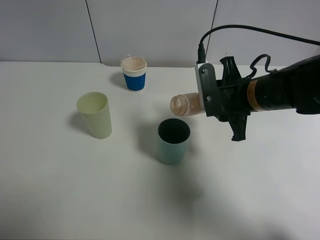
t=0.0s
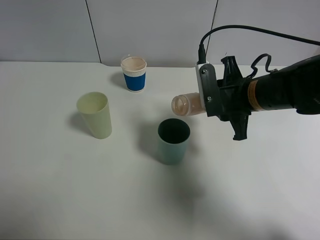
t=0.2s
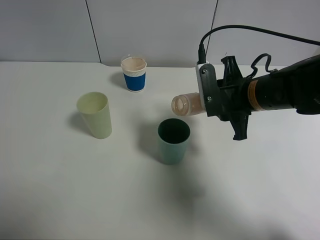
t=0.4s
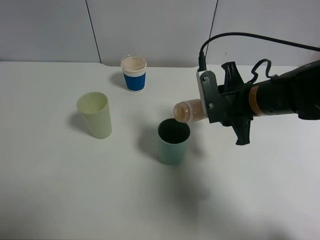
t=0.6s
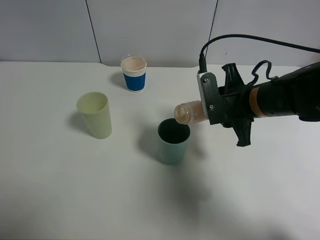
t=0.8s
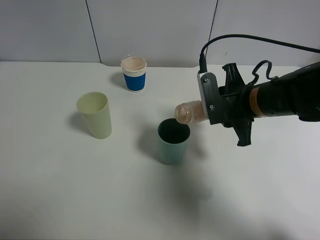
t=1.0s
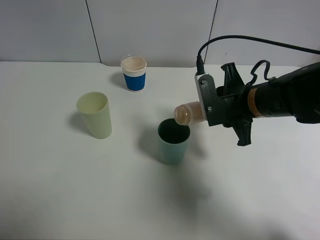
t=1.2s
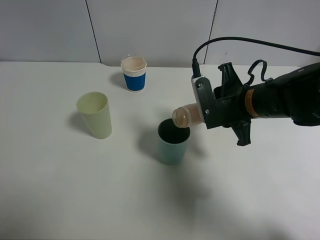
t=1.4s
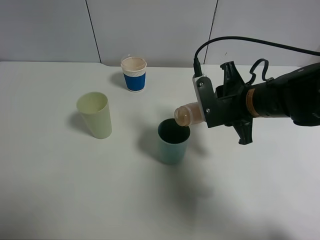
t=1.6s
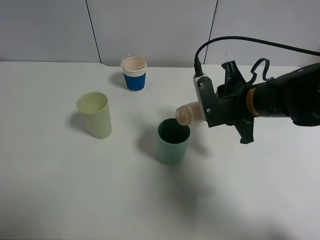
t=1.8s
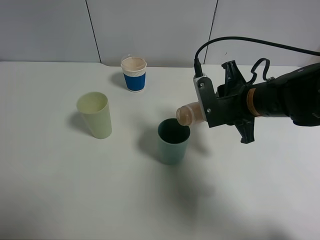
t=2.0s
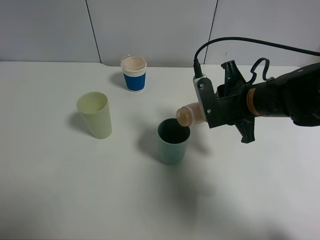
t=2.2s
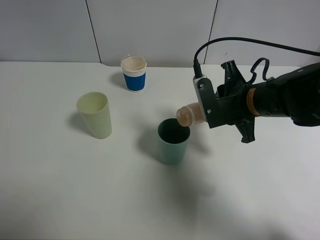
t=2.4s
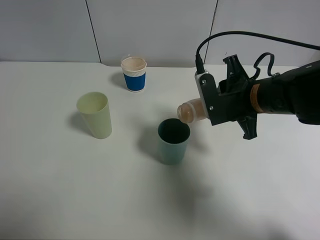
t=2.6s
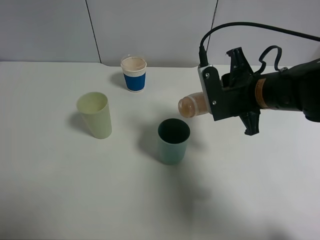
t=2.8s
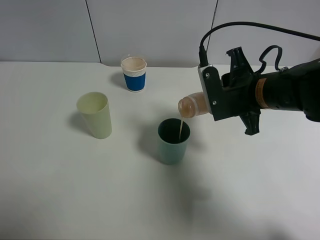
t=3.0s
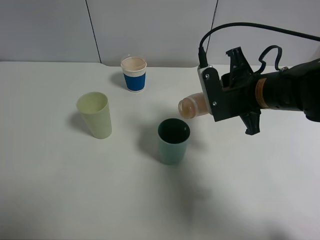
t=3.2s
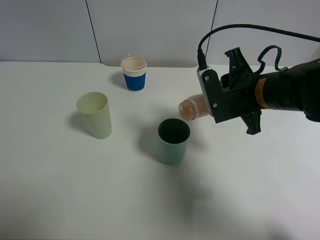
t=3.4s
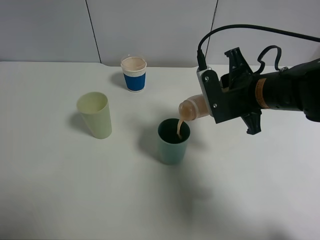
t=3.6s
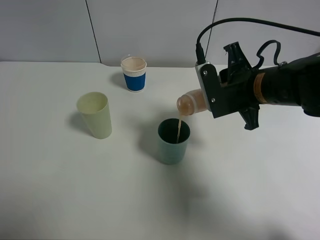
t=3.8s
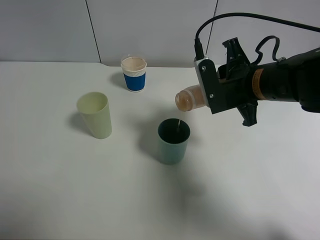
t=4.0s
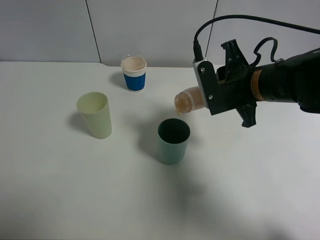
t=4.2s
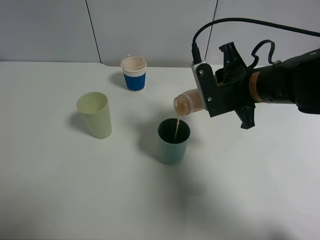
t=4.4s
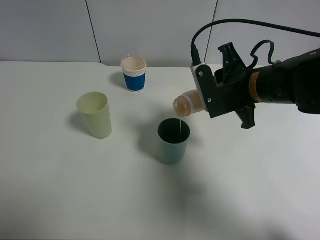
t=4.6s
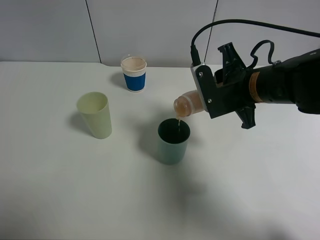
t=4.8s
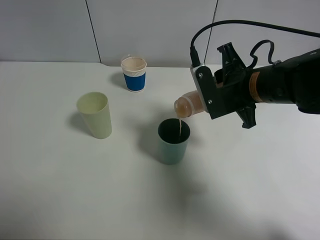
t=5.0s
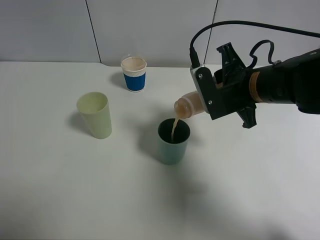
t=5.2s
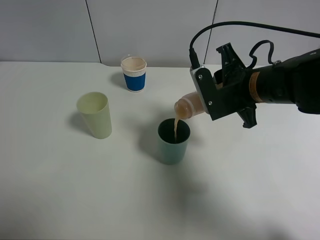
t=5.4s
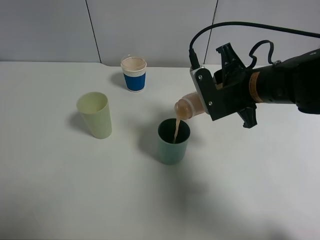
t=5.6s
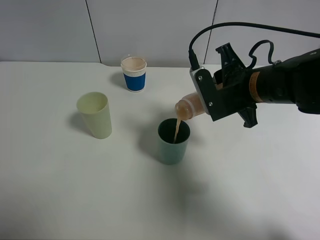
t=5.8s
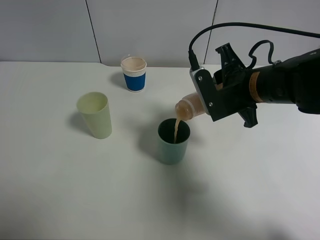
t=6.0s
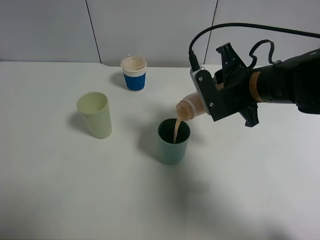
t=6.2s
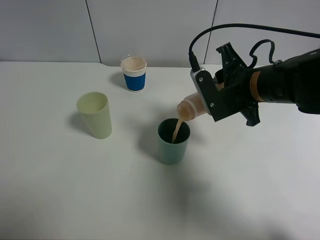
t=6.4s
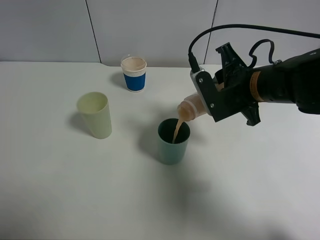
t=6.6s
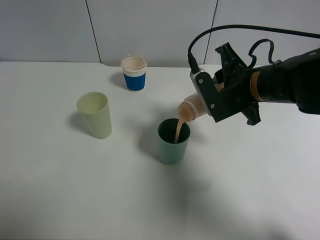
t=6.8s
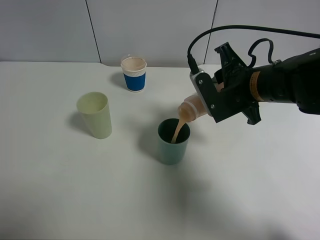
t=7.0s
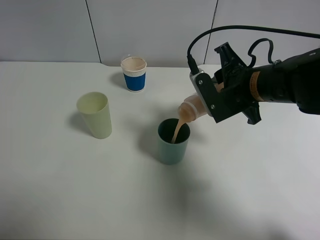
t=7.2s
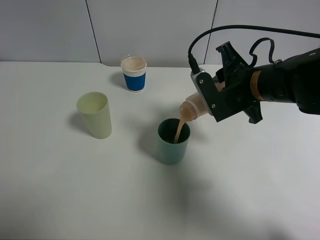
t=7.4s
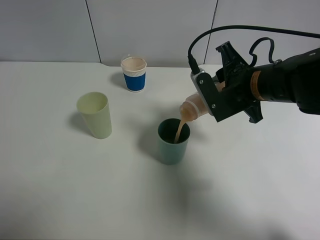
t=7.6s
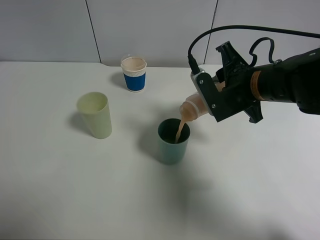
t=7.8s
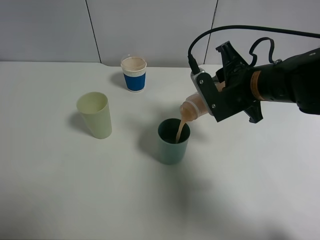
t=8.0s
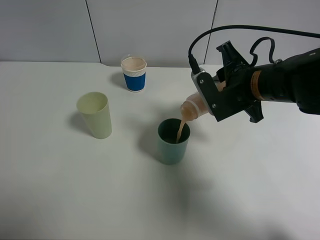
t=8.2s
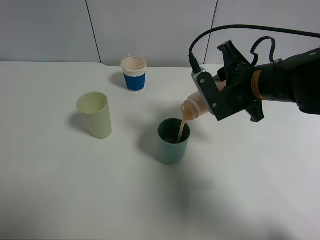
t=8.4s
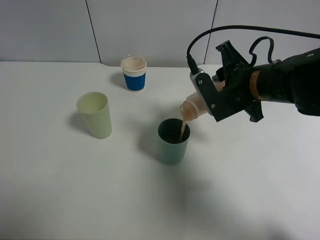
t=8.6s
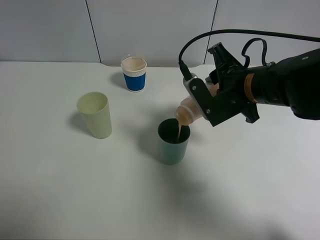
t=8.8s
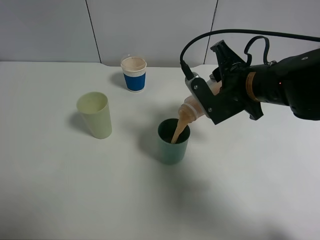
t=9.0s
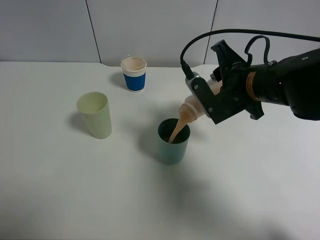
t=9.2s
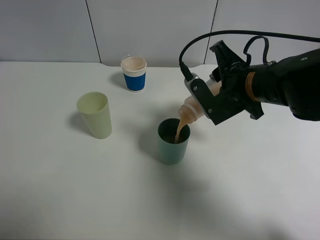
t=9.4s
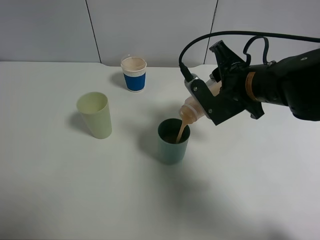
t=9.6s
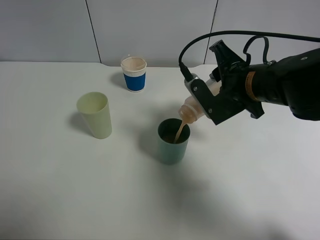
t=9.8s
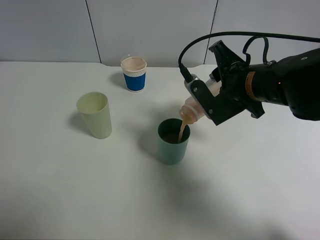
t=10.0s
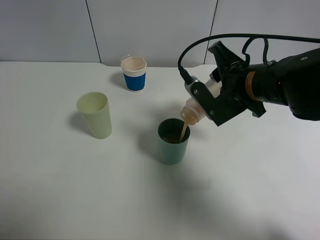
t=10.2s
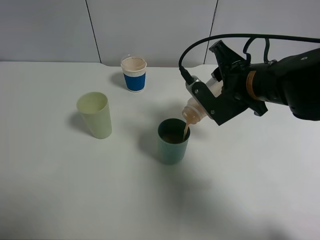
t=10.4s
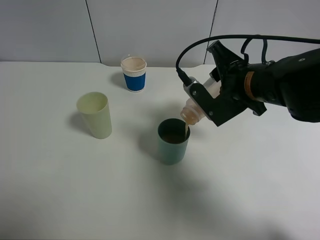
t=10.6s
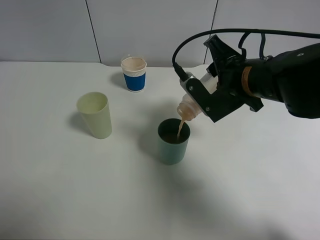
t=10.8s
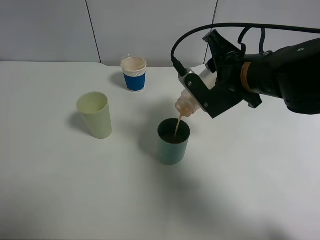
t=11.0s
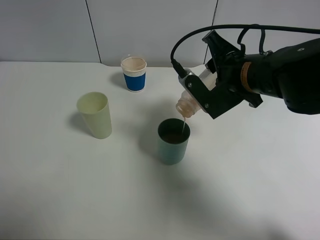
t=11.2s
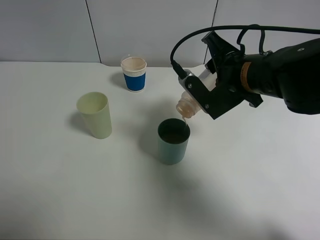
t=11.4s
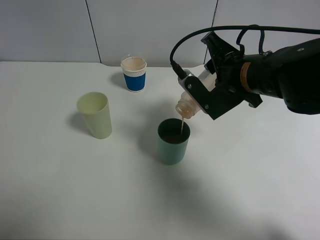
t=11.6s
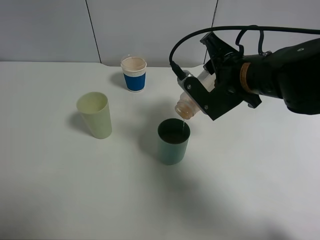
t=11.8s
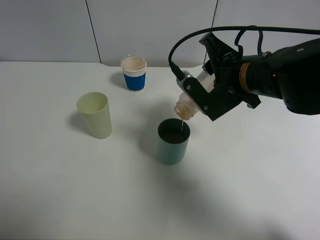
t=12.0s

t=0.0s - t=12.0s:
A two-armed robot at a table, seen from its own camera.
Task of the whole recording: use a clamp to hold the bottle of the drink, pour the beverage into a random cup, then clamp the cup containing the drink and pour the drink into another random cup.
t=0.0s - t=3.0s: The grippers move only a little.
t=3.0s - t=4.4s: Both grippers stay about where they are.
t=4.4s - t=9.0s: There are only small adjustments of the grippers.
t=9.0s - t=12.0s: The grippers move only a little.

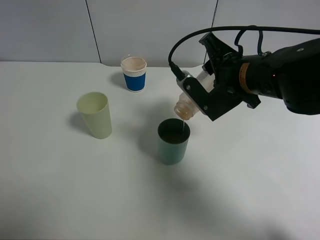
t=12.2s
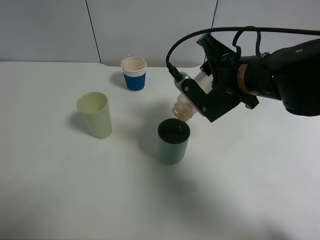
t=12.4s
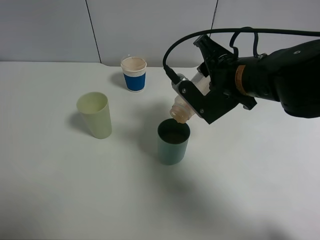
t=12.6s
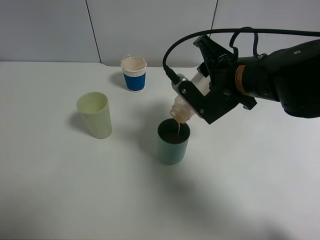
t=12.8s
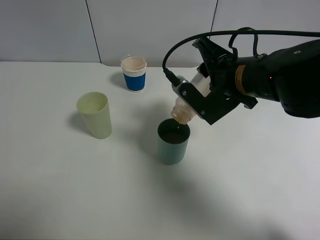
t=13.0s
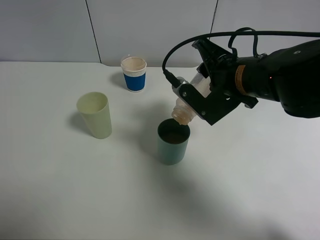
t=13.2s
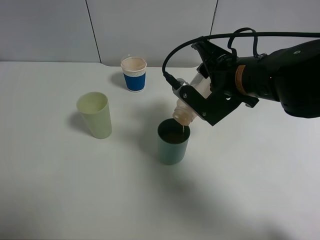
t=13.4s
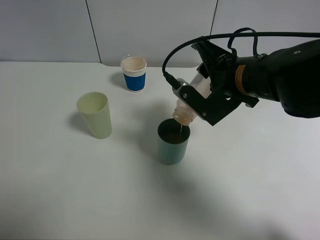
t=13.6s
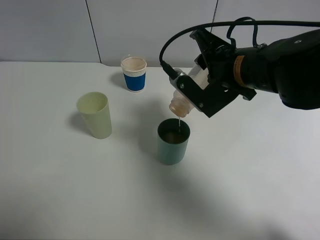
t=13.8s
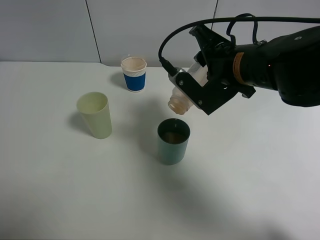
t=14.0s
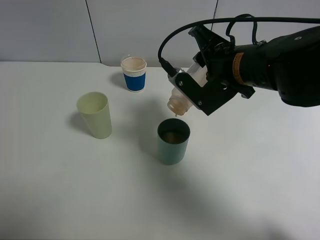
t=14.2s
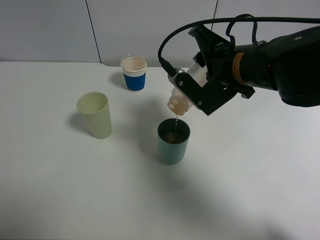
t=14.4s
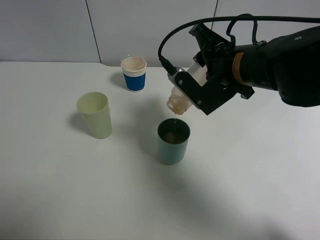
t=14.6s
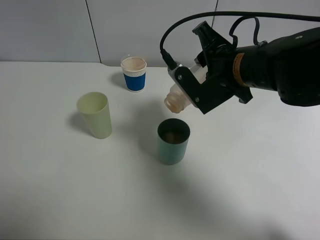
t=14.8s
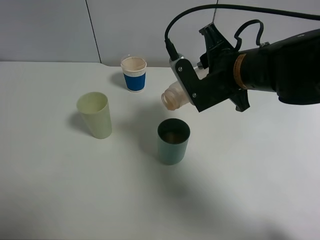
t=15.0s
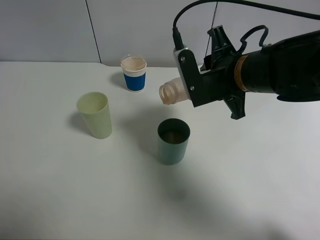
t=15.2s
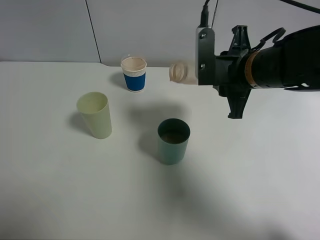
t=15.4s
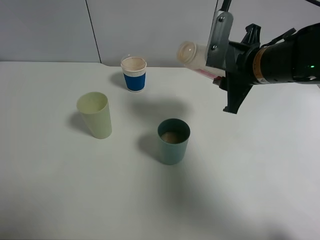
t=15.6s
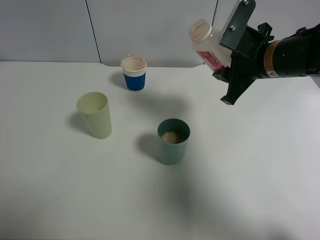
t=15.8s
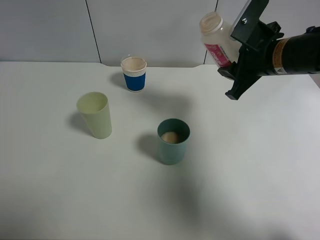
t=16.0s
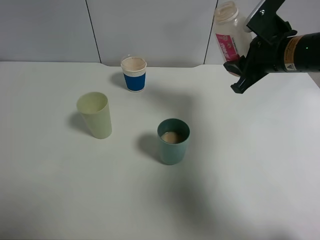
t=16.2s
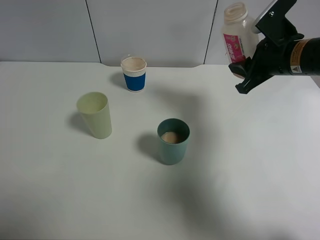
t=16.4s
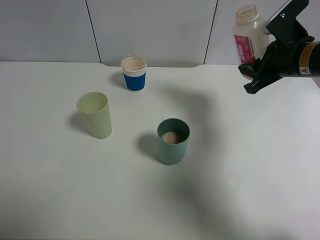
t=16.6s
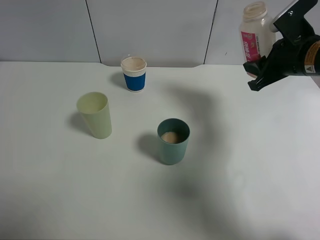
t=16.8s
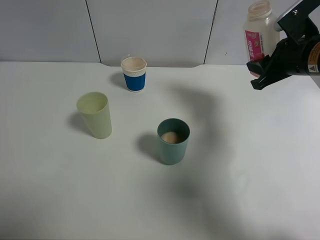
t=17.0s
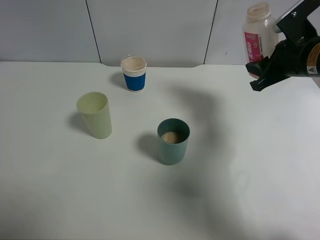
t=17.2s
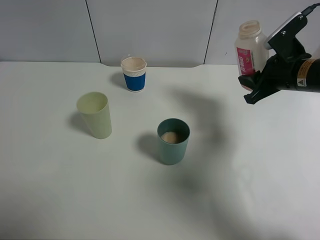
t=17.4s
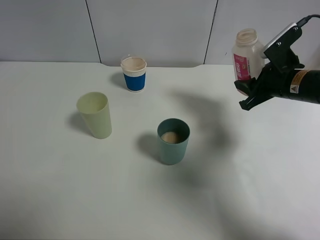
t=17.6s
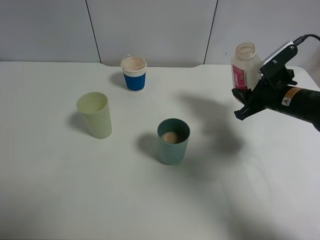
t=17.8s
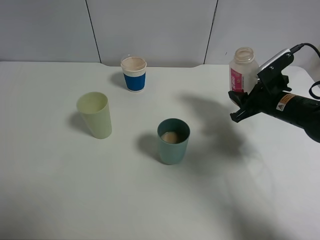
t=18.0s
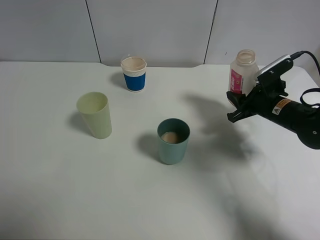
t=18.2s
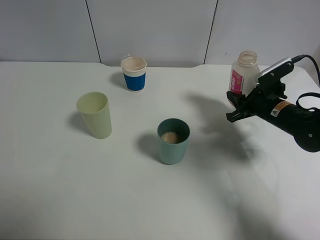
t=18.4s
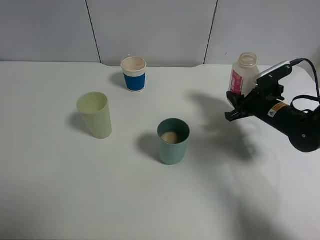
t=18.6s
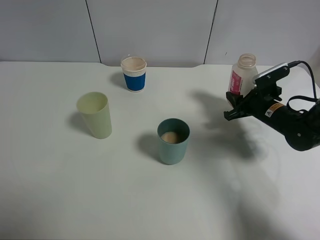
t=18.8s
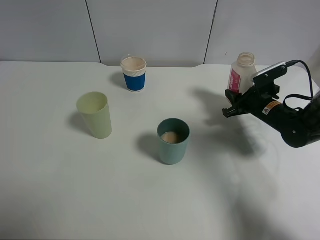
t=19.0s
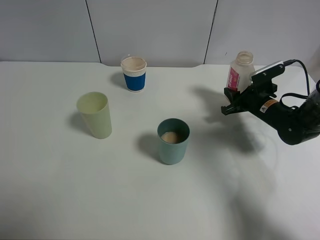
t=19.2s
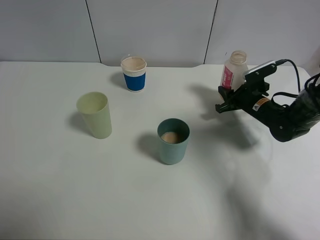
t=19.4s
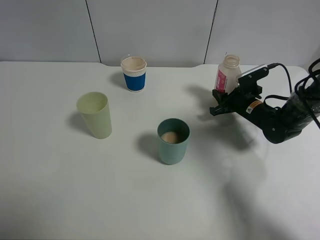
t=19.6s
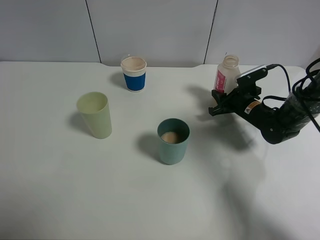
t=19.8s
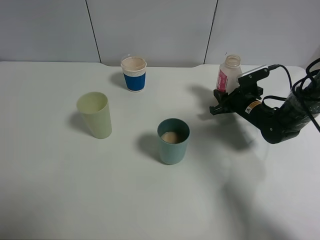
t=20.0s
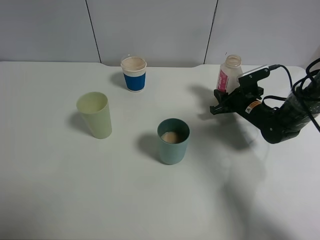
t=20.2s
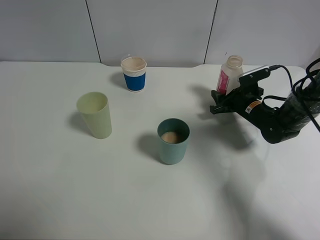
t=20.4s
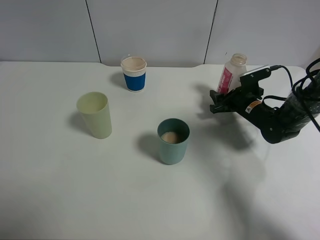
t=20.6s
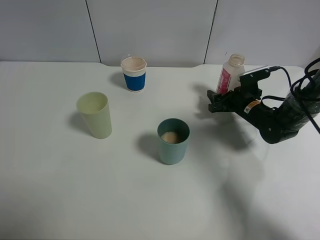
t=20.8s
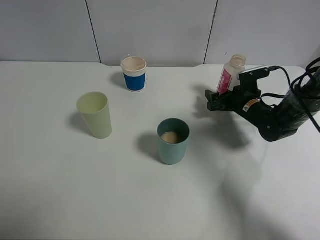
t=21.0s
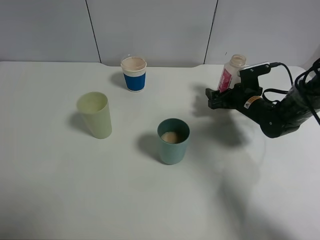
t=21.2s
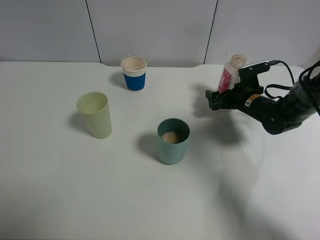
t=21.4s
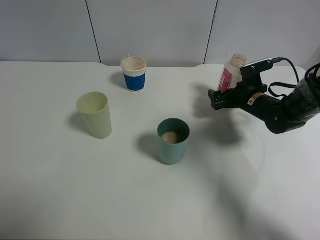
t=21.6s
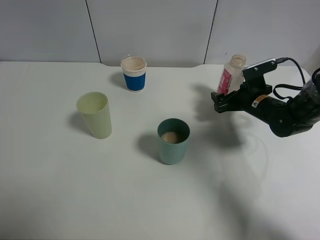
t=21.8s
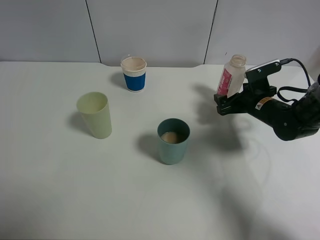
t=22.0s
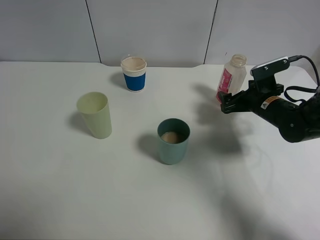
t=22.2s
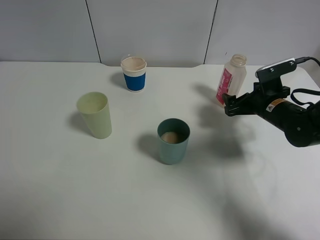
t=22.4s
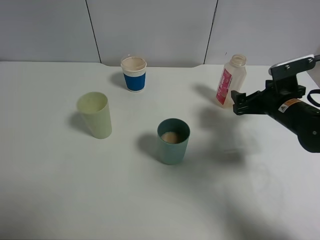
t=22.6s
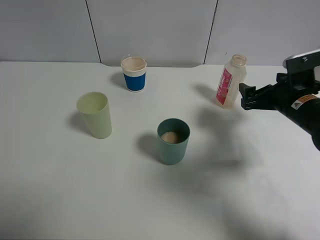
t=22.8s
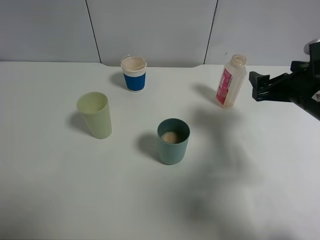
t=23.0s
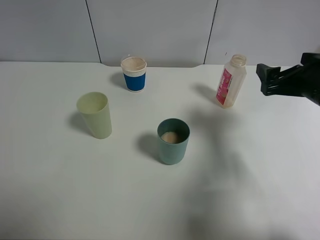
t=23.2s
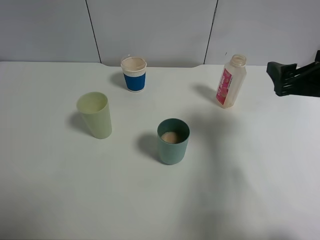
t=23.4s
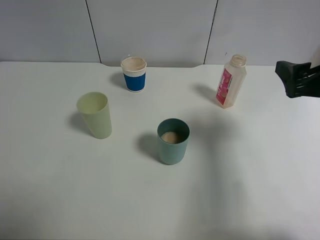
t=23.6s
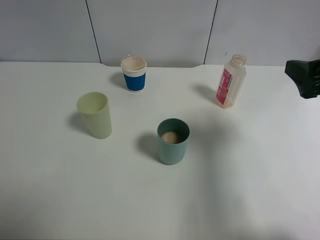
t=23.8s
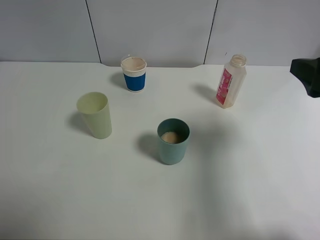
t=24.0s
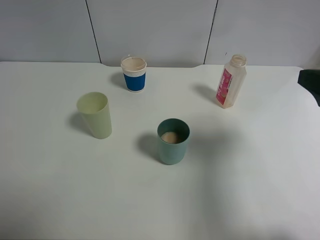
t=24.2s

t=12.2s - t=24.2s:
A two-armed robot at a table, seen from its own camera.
Task of the whole recording: use a clamp to hold the bottle of the drink, pour the beverage into a random cup, then clamp the cup containing the drink and pour the drink into another random cup.
Step, t=12.2s - t=15.0s: Pour the drink into the blue plastic cup with right gripper.
Step, t=15.2s - t=22.0s: Place the drink bottle on the table with right gripper.
t=12.2s - t=15.2s: The grippers stay close to where they were, moving slightly.
t=15.2s - t=16.6s: The right gripper moves to the right and forward, some 15 cm.
t=16.6s - t=18.2s: The right gripper heads downward, covering some 10 cm.
t=18.2s - t=19.8s: The right gripper goes roughly 10 cm downward and forward.
t=19.8s - t=21.2s: The right gripper opens up.
t=21.2s - t=22.6s: The right gripper shifts roughly 10 cm backward and upward.
t=22.6s - t=24.2s: The right gripper goes about 25 cm upward and backward.
